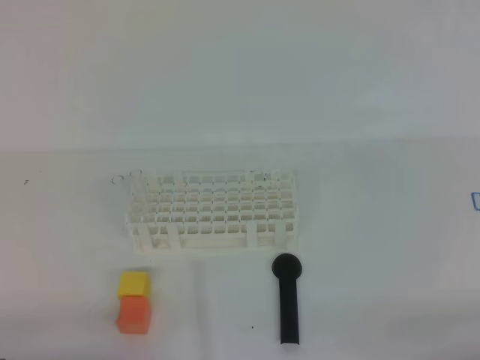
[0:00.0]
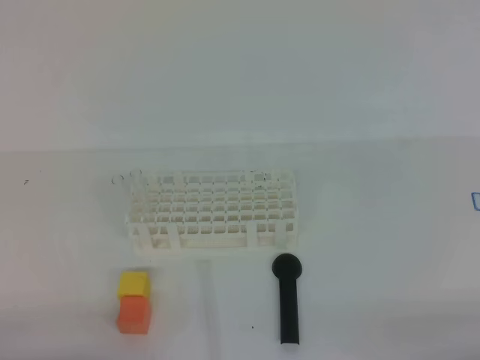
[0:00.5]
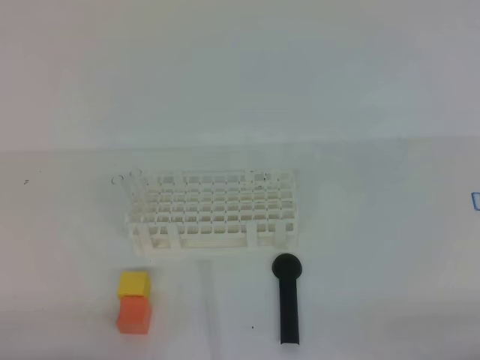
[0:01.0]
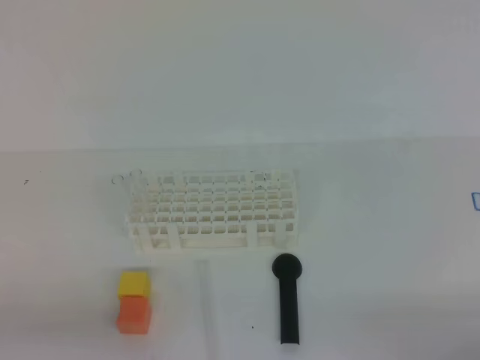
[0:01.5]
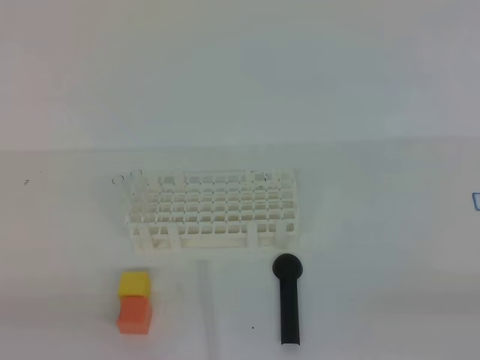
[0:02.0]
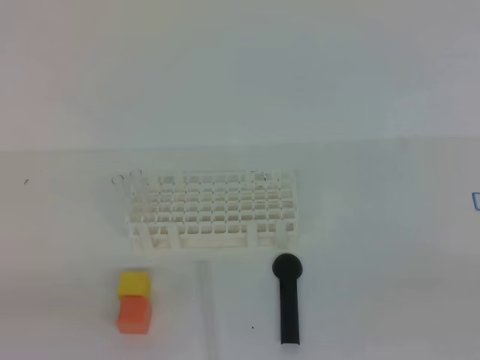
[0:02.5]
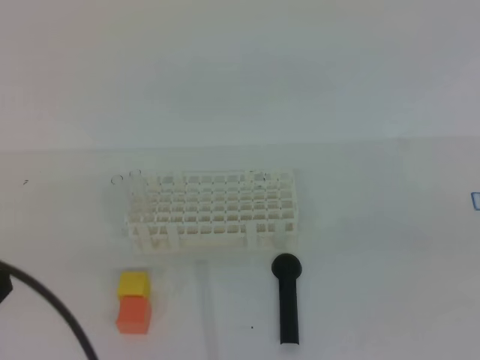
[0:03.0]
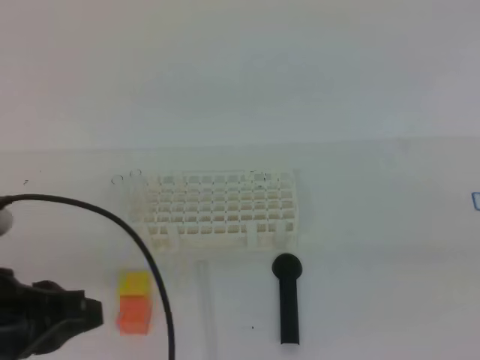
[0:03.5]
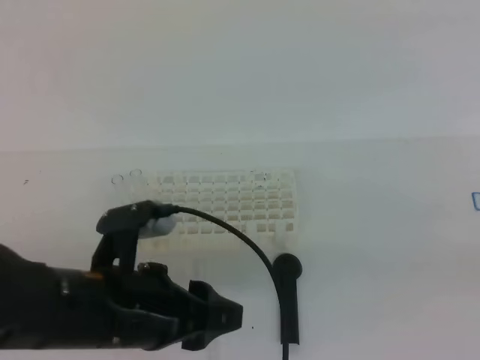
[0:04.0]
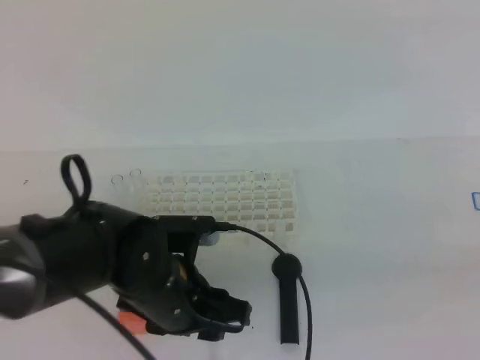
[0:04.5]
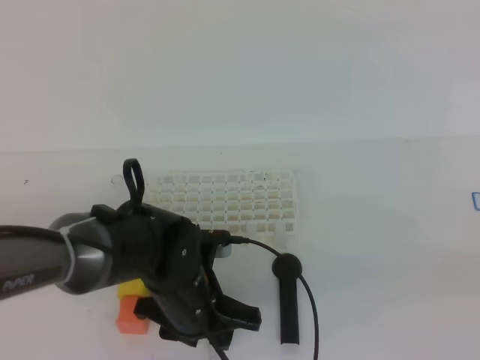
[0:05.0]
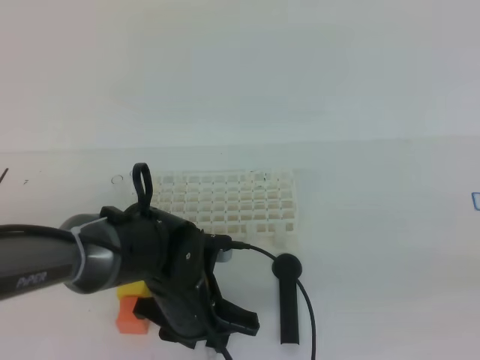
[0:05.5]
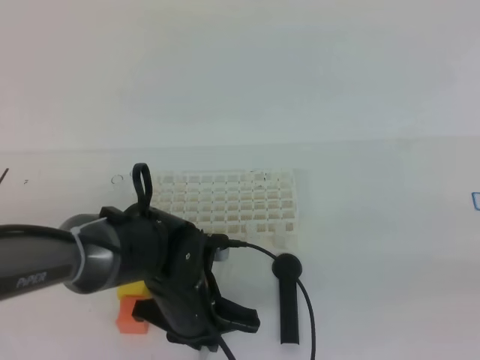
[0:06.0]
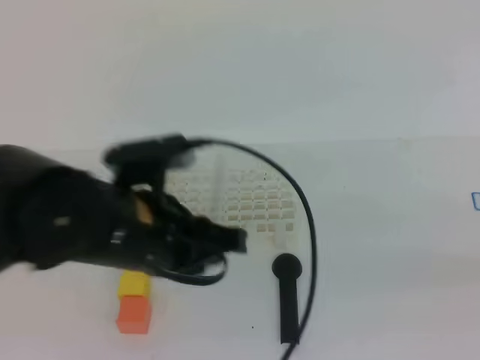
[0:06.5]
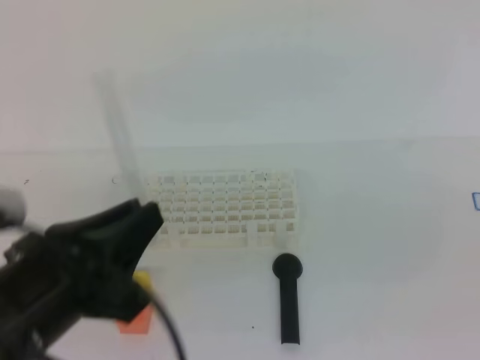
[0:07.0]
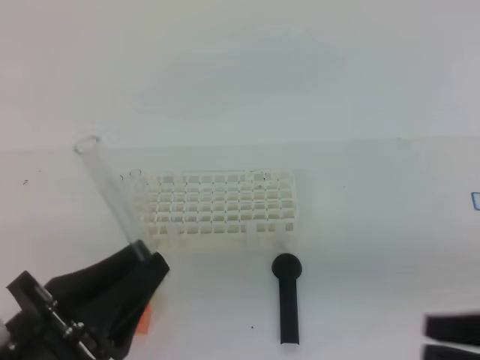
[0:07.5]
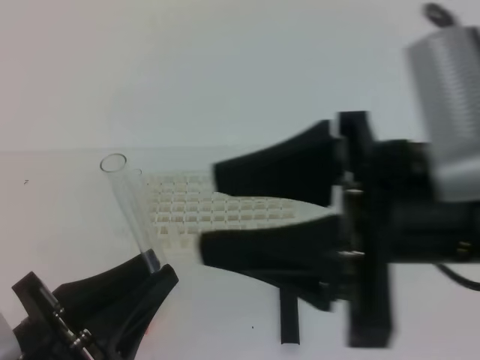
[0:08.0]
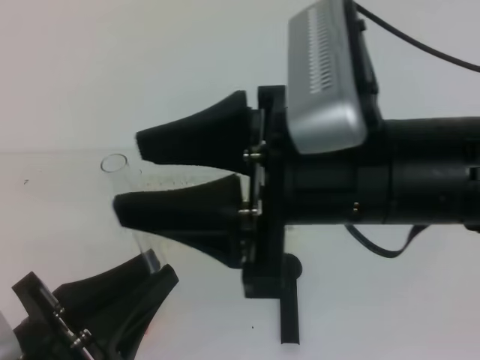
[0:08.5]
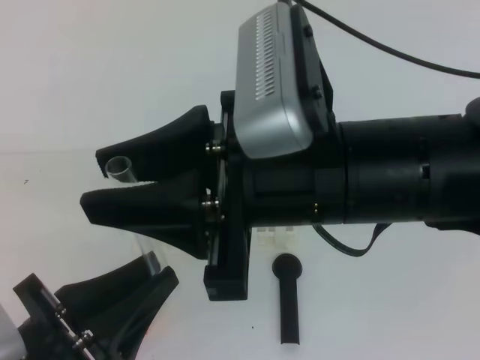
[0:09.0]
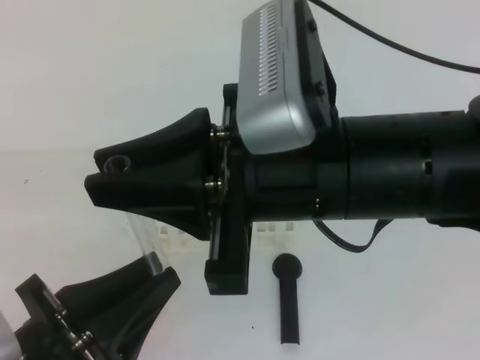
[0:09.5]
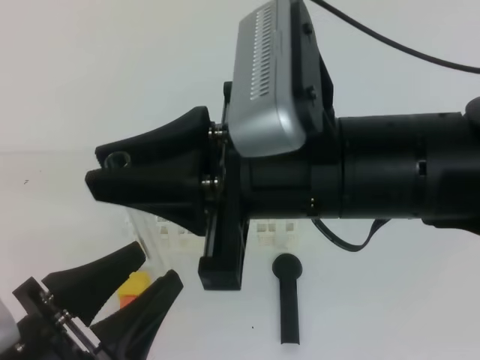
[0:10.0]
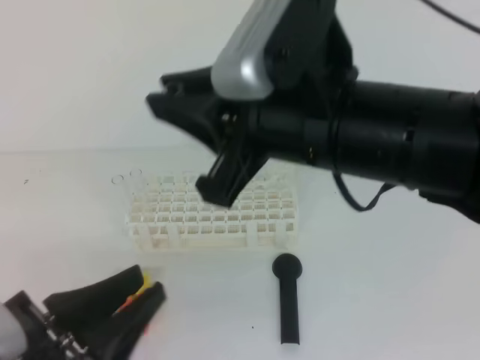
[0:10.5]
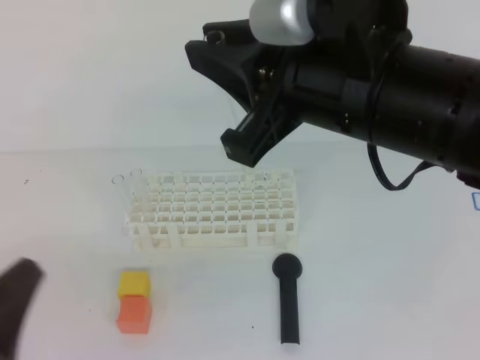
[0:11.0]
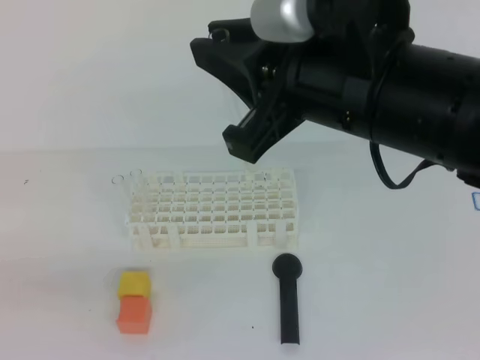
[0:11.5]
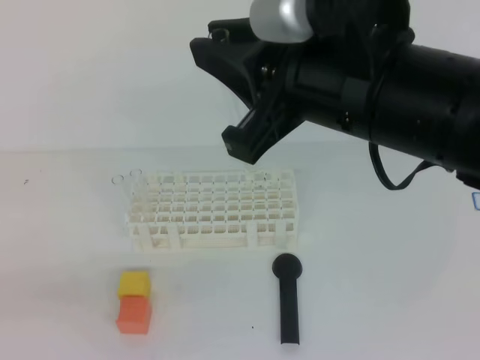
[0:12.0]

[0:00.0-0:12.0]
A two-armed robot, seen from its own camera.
0:02.0 to 0:04.0: The right gripper moves upward, approximately 10 cm. Meanwhile the left gripper moves to the right and forward, some 20 cm, and opens its fingers.
0:04.0 to 0:06.0: The left gripper moves downward, forward and to the right, roughly 15 cm, and closes its fingers.
0:06.0 to 0:08.0: The left gripper shifts about 20 cm backward, to the left and upward, while the right gripper is displaced to the left and forward by some 20 cm, and opens.
0:08.0 to 0:10.0: The left gripper opens. Meanwhile the right gripper heads to the left, covering some 10 cm, and closes.
0:10.0 to 0:12.0: The left gripper goes about 10 cm to the left, and closes. The right gripper ends up roughly 5 cm from where it was.

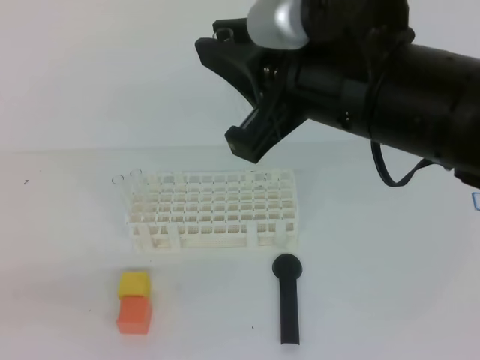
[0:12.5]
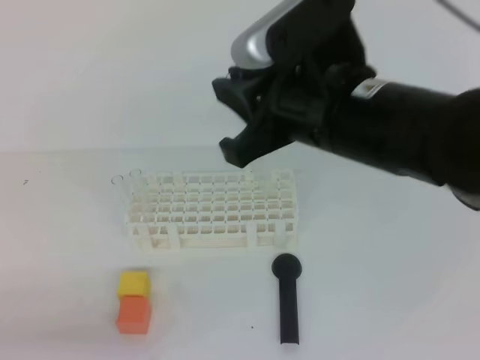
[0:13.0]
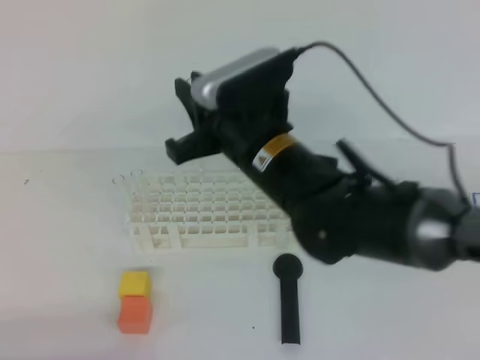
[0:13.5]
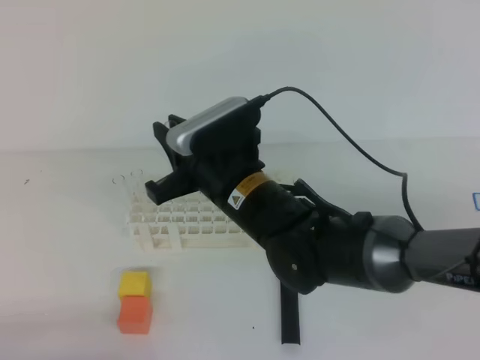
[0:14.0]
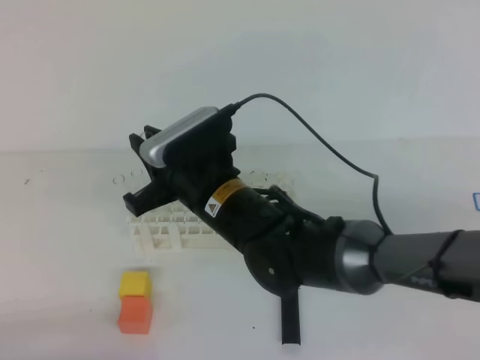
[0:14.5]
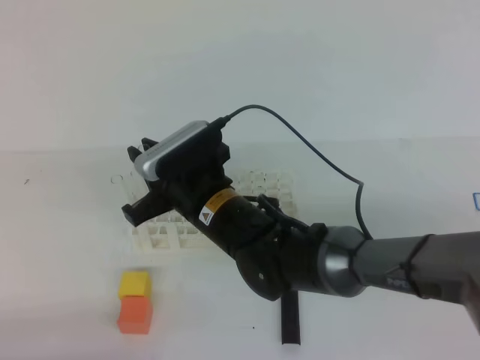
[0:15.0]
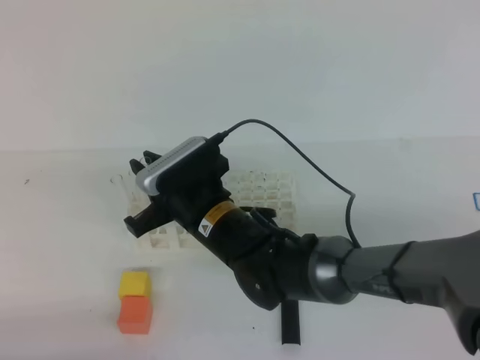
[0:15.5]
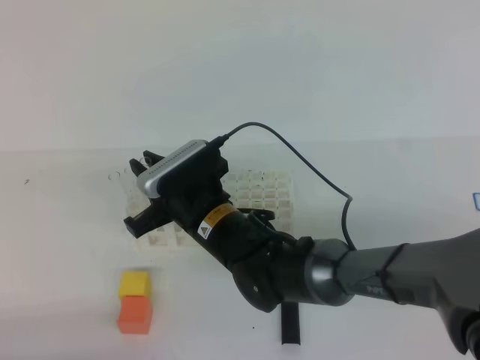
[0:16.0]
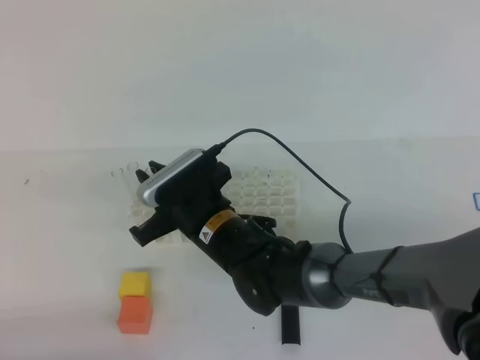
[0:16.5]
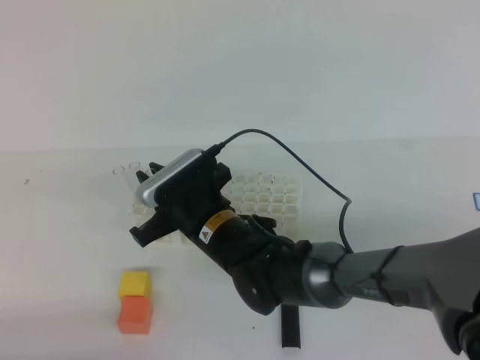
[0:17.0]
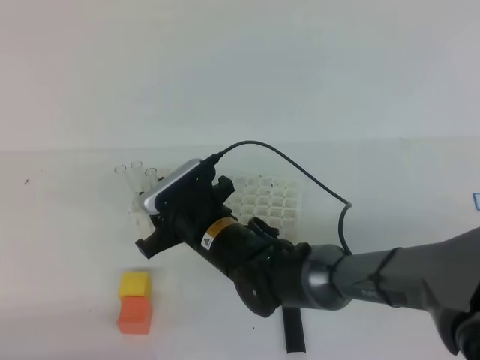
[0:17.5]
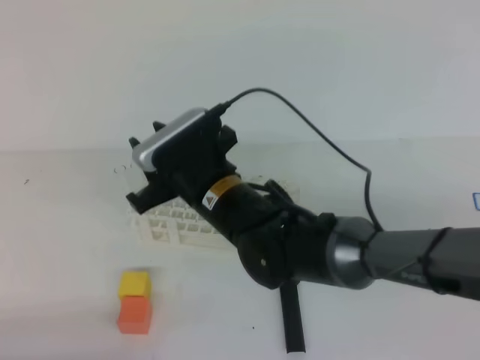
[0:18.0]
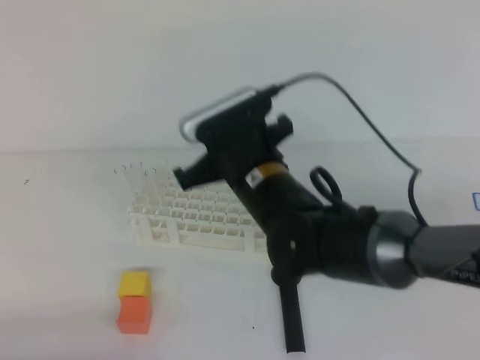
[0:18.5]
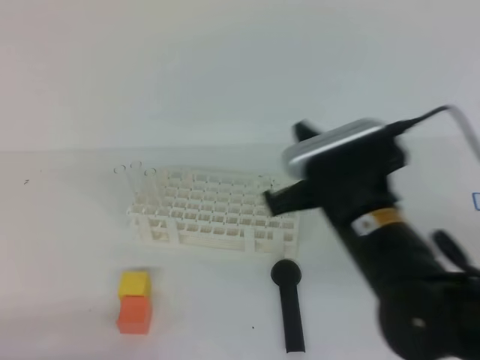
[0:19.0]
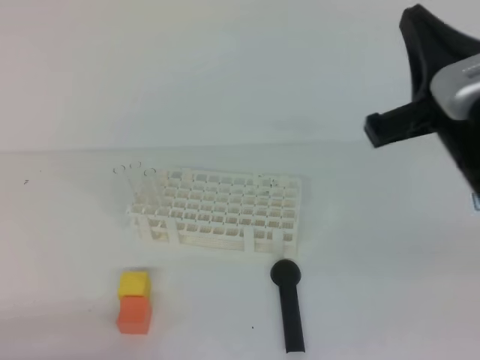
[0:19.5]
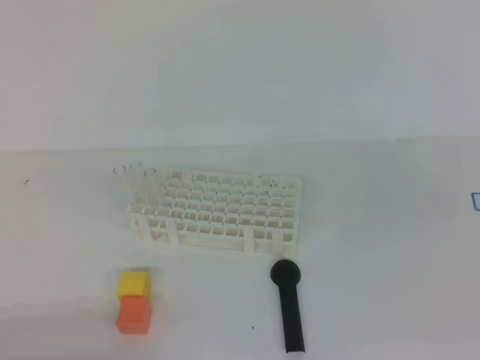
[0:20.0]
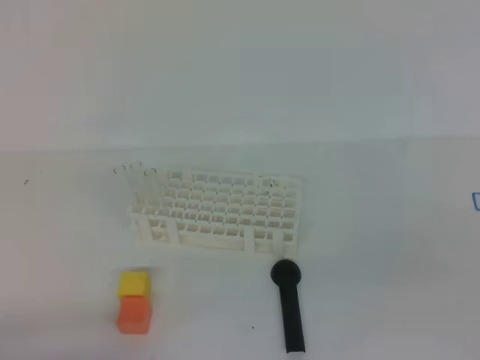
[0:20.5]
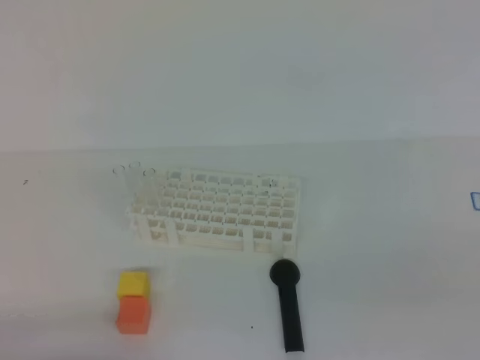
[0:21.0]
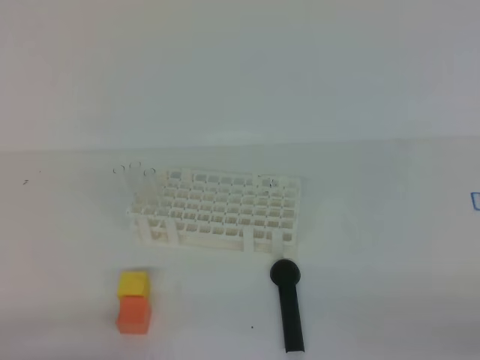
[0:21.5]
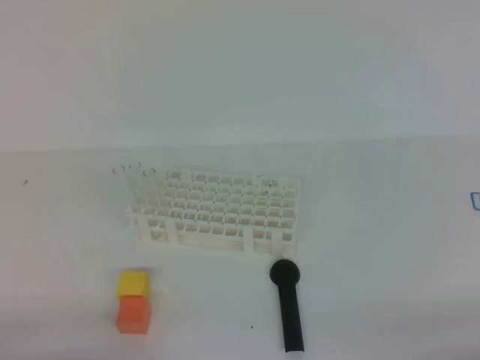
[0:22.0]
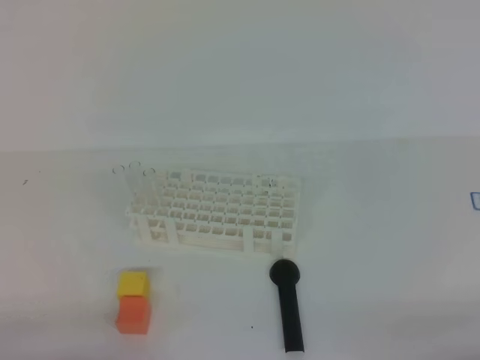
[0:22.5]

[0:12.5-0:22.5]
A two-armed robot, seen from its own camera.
0:12.5 to 0:14.5: The left gripper heads downward, covering about 10 cm. Meanwhile the right gripper shifts about 20 cm downward, to the left and forward.
0:14.5 to 0:16.5: The right gripper goes approximately 5 cm downward.
0:16.5 to 0:18.5: The right gripper travels upward and to the right by approximately 10 cm, and opens, then closes again.
0:18.5 to 0:20.5: The right gripper moves to the right and backward, roughly 40 cm.
